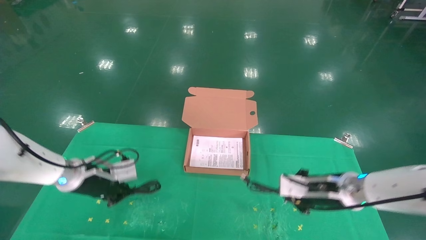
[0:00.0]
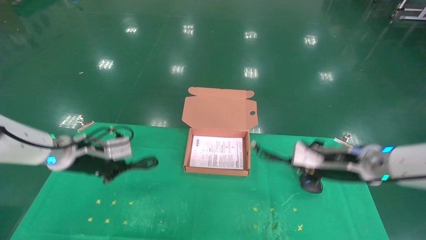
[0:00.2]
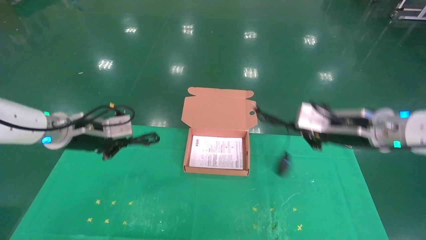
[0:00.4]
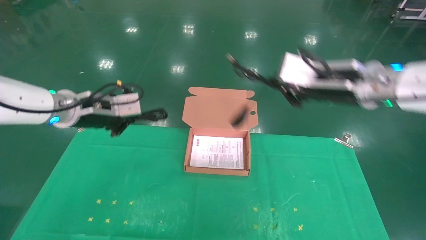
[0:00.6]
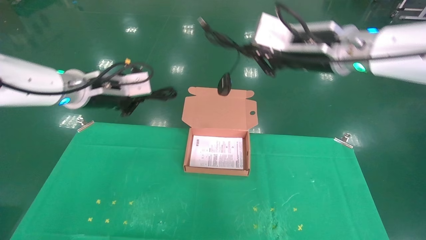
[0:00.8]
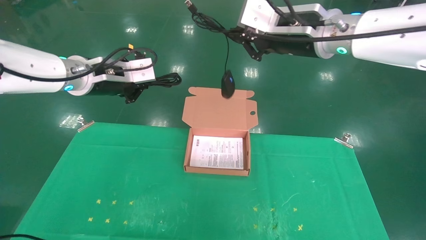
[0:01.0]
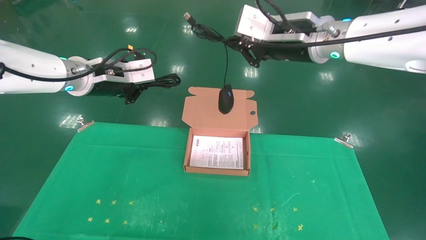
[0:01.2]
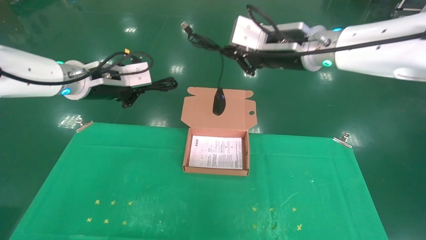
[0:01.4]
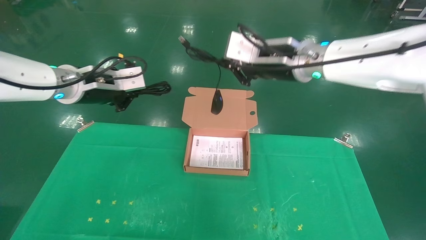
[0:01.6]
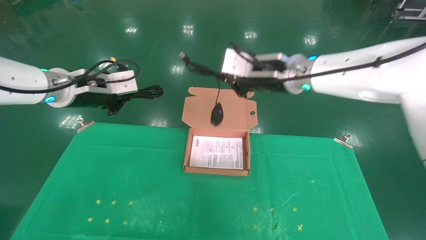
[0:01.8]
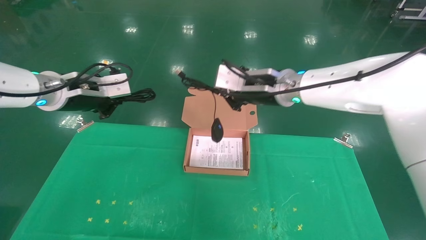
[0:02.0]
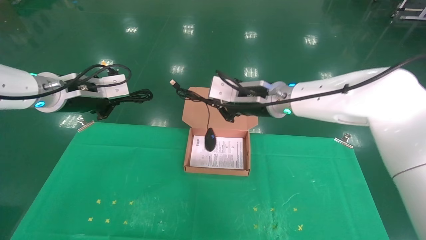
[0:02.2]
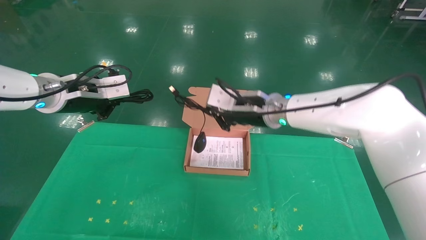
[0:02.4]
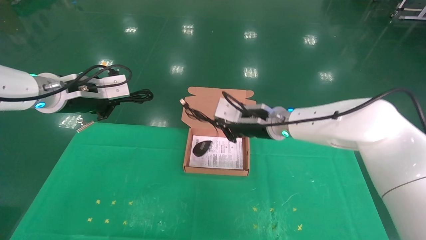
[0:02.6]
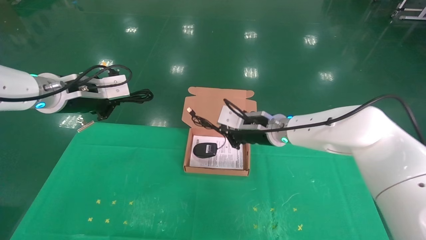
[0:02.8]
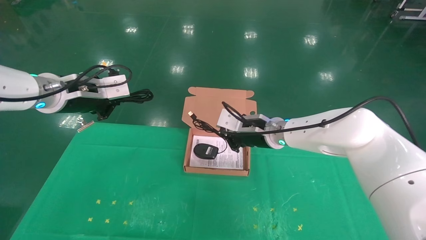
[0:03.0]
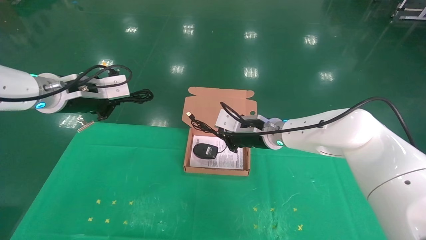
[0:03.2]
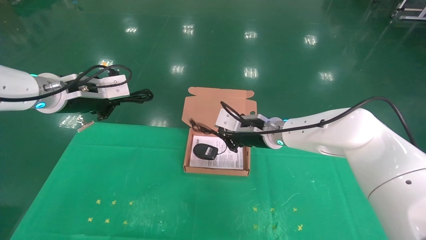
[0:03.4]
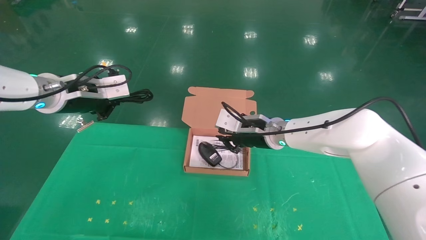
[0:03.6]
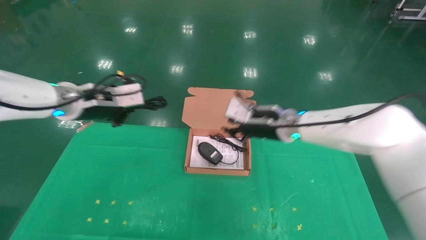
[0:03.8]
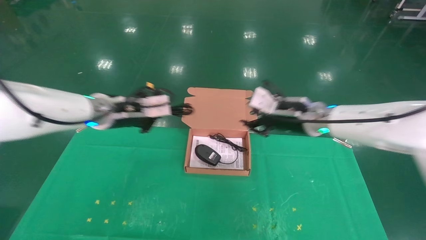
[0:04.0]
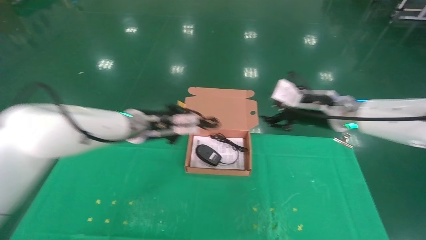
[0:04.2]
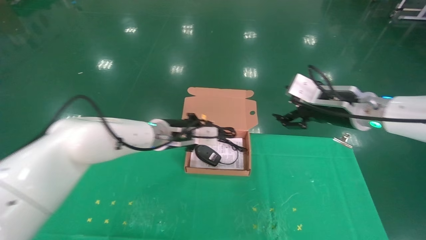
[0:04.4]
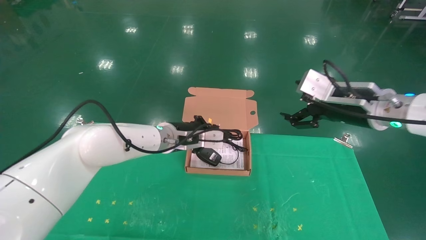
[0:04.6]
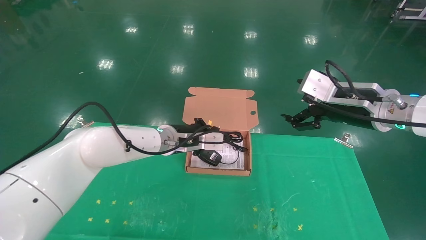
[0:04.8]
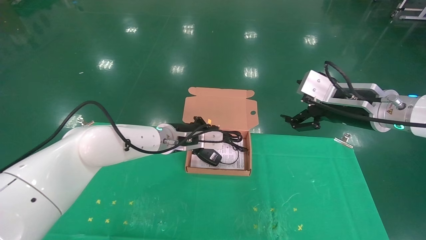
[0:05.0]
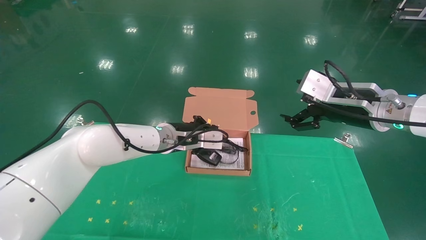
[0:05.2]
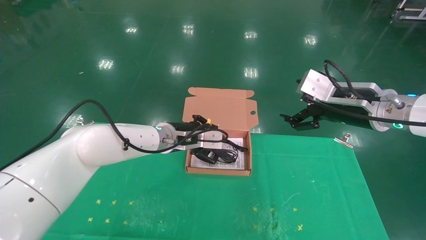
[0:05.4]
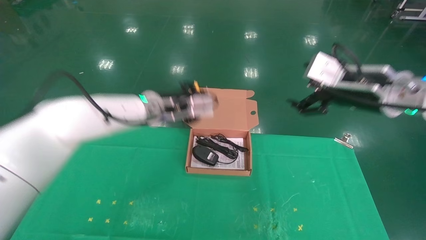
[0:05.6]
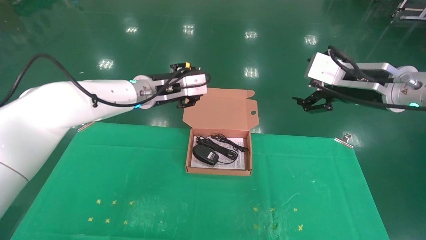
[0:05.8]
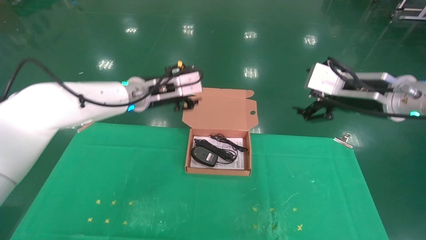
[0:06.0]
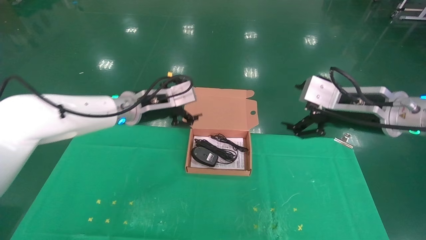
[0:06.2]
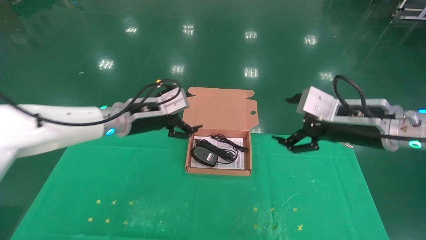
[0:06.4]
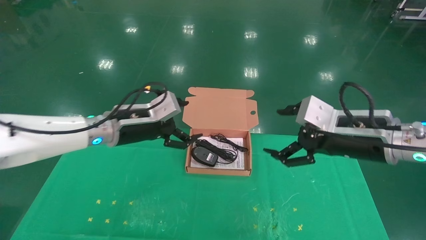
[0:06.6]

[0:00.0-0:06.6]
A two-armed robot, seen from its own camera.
Task of the whole recording: grasp data cable left put into box grasp mouse right put into box.
Step, 0:00.6 to 0:05.6: Place the mouse and power cord into the box.
0:00.0 to 0:01.6: The left gripper moves upward, some 20 cm, while the right gripper moves upward and to the left, roughly 25 cm.
0:01.6 to 0:03.2: The right gripper moves downward and forward, roughly 15 cm.
0:03.2 to 0:05.0: The right gripper moves to the right, backward and upward, about 20 cm, and opens. The left gripper is displaced to the right, downward and forward by approximately 25 cm.
0:05.0 to 0:06.6: The left gripper moves to the left, backward and upward, about 10 cm, and opens its fingers. The right gripper shifts by approximately 5 cm.

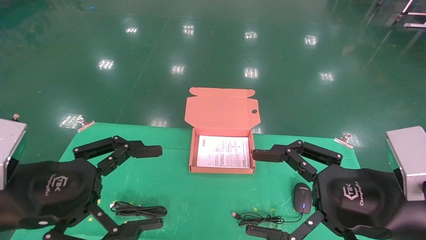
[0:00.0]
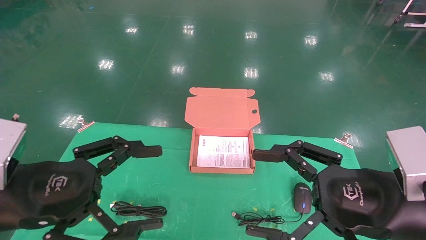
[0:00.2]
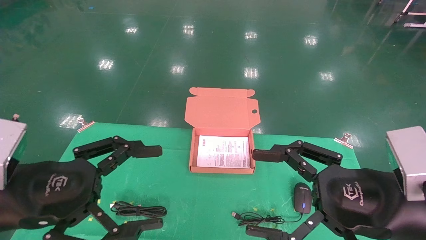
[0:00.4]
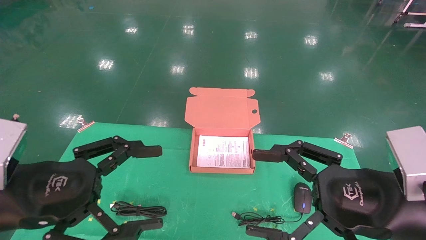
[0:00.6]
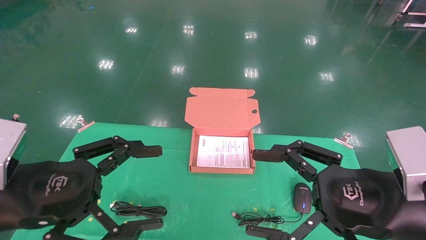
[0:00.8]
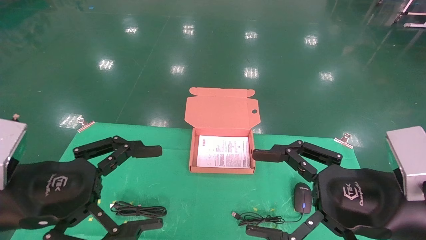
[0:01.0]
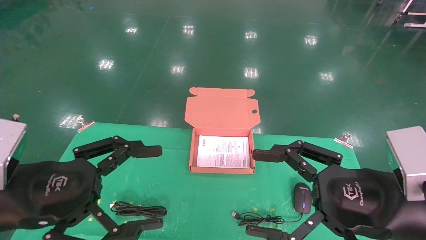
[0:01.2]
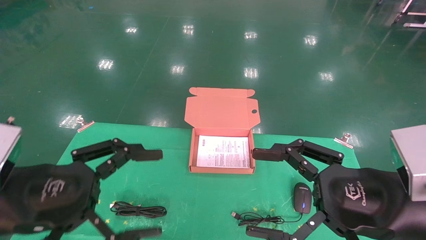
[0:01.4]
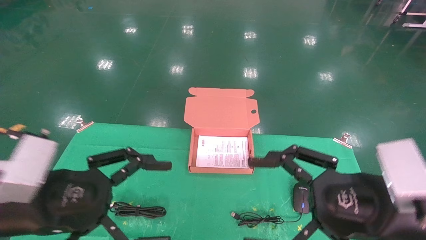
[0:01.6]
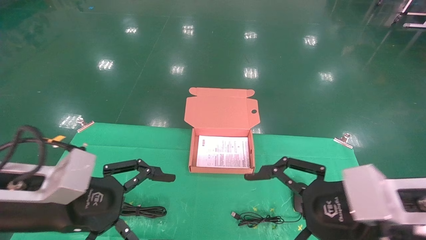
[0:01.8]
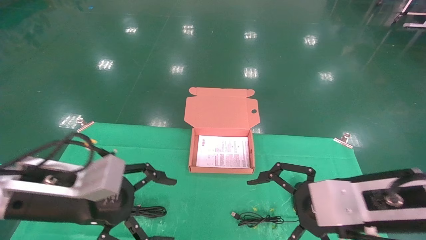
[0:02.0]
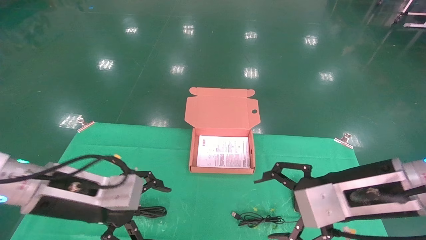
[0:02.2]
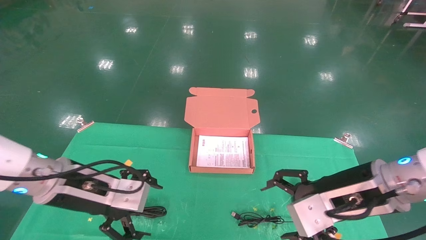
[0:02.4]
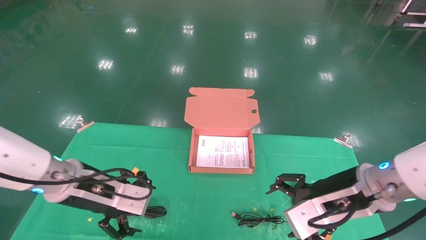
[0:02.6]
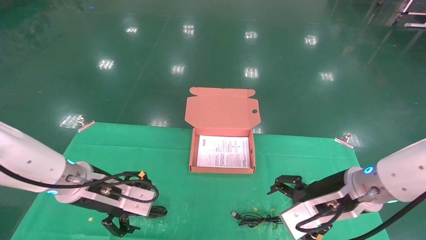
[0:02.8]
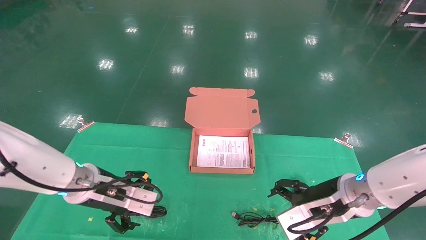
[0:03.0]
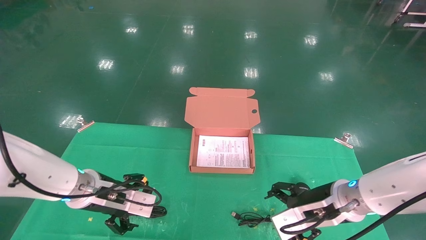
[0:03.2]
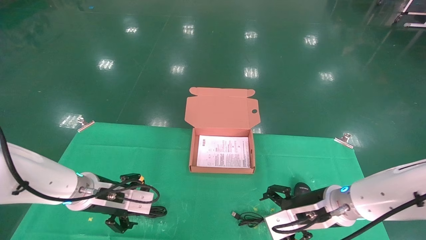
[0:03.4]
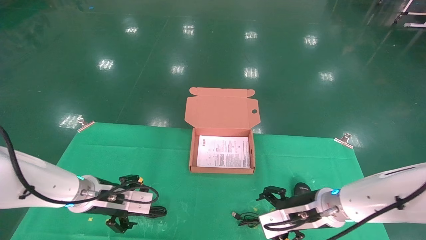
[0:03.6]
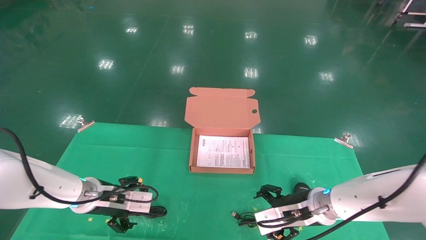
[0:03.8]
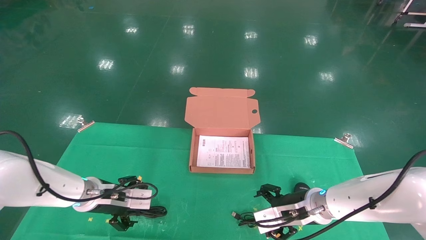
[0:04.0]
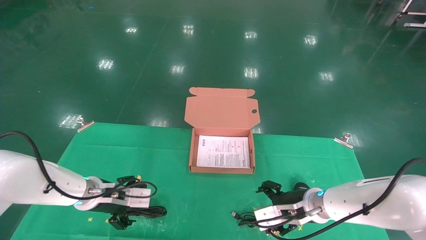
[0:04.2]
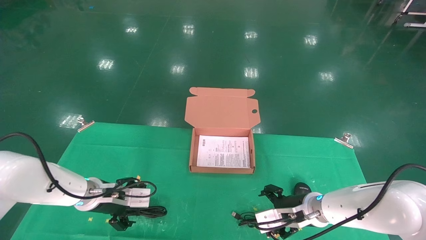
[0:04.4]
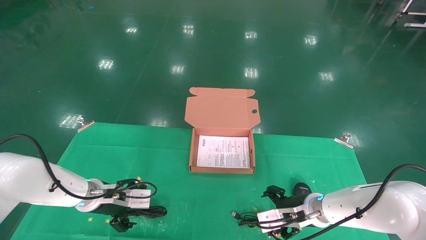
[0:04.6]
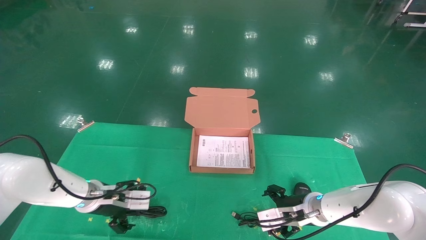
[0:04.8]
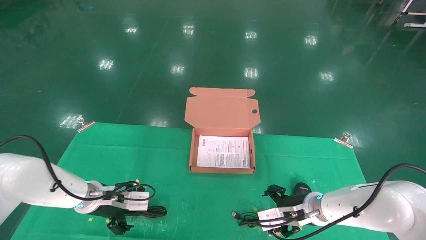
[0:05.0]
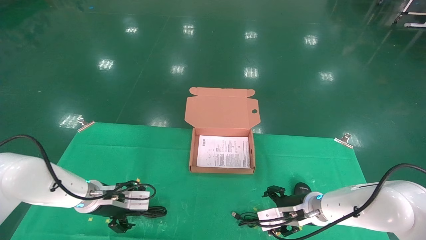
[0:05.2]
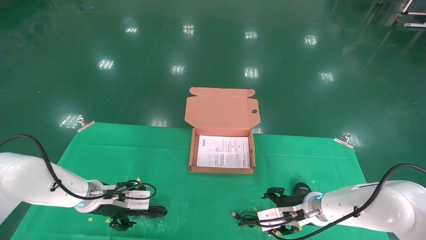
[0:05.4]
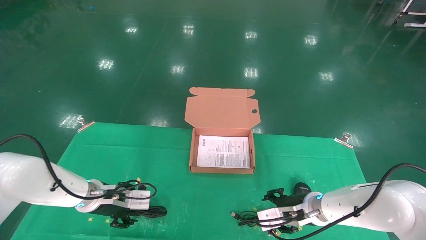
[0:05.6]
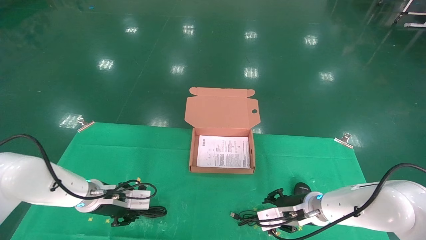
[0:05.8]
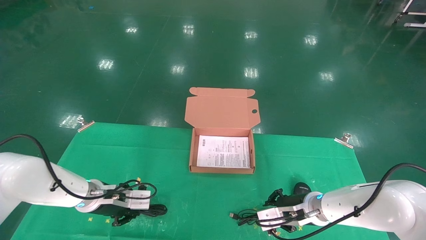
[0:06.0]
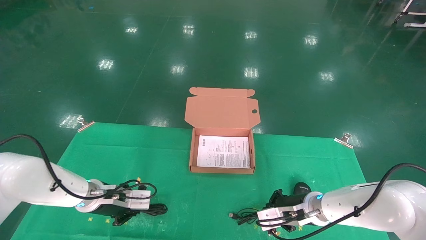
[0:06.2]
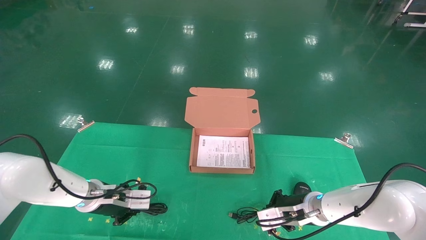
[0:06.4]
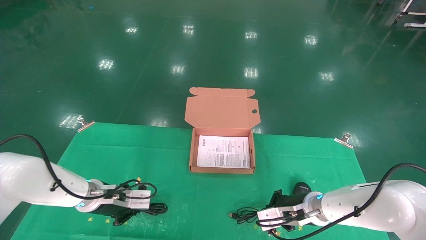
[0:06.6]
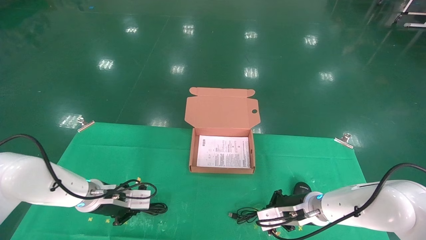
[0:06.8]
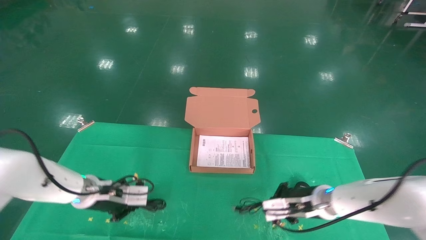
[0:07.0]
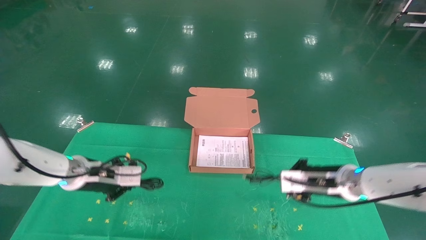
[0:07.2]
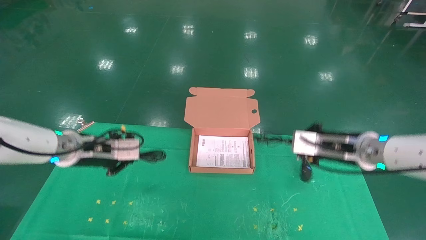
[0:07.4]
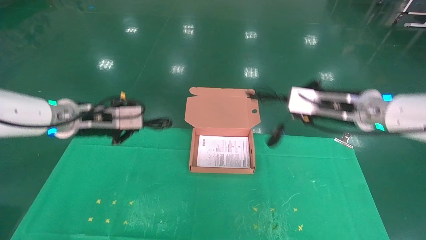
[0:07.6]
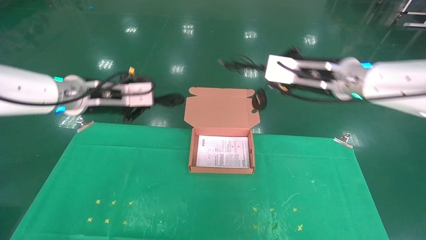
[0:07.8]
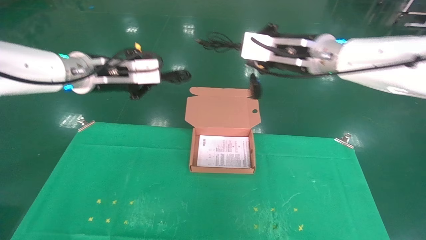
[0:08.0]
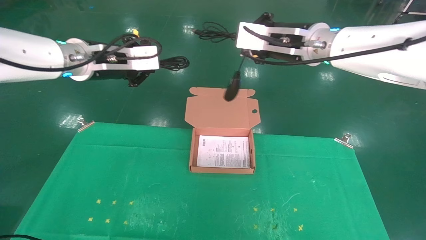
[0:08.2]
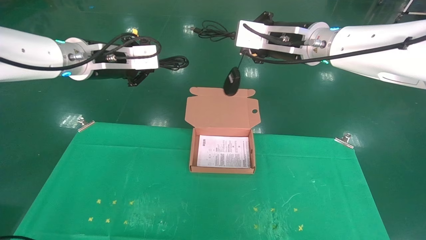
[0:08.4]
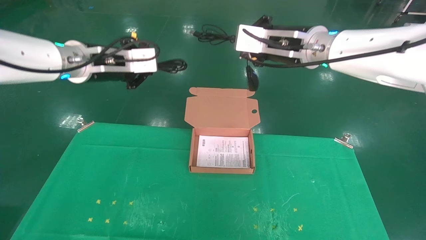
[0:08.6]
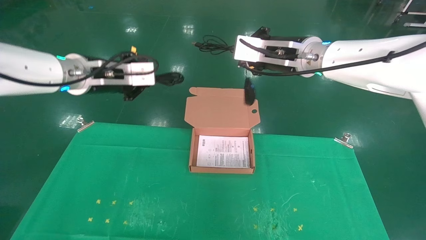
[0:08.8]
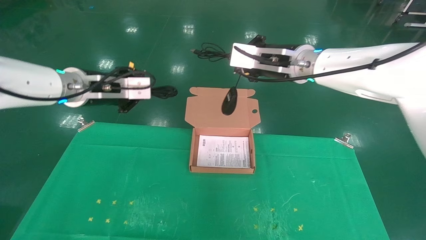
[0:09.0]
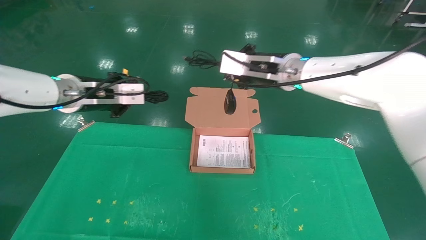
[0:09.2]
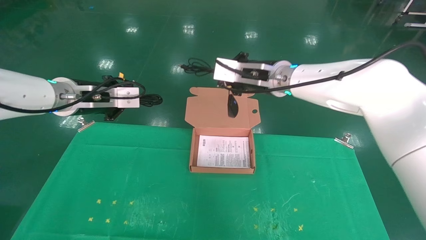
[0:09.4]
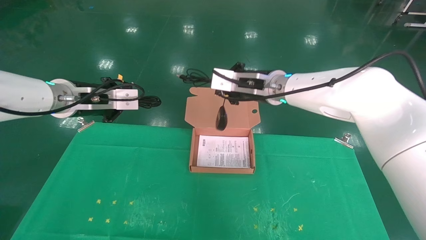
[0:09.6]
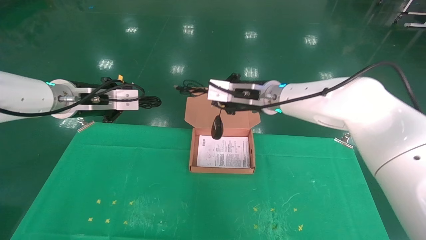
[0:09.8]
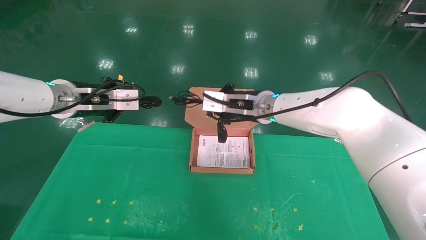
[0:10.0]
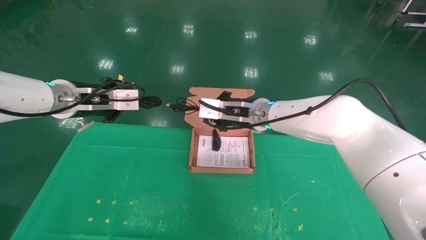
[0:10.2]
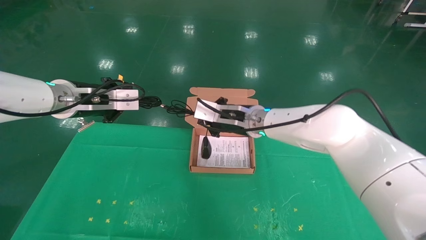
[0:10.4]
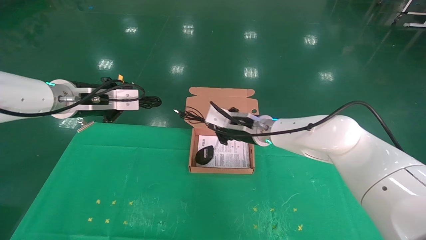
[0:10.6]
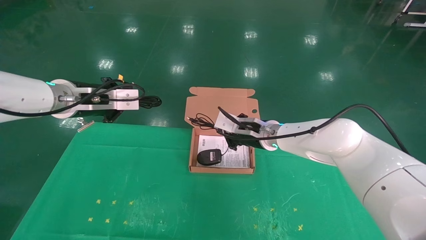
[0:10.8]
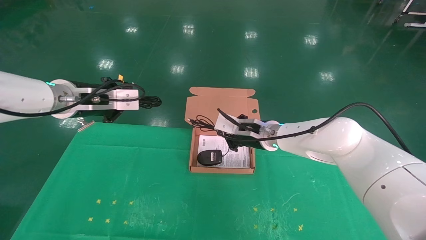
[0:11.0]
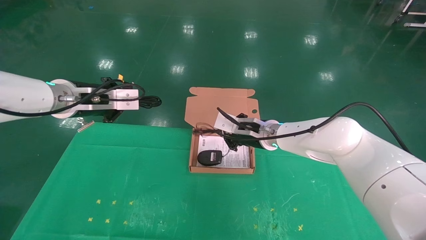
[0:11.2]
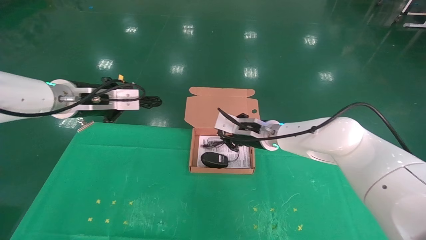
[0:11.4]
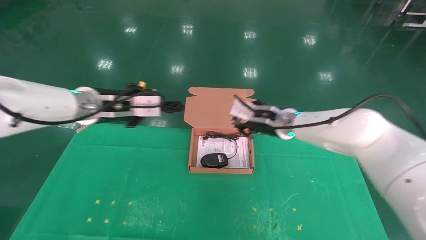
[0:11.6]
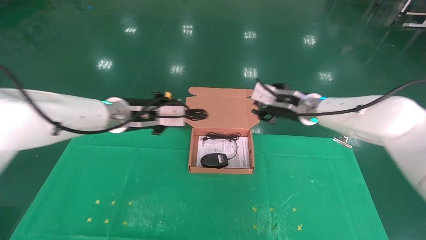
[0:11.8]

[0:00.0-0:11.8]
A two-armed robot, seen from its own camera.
Task of the whole recording: grasp data cable left put into box grasp mouse right put into box.
Step, 0:01.0 to 0:06.6: Grab and pick up both the mouse and power cord from the accessory packaging area at the same time.
0:00.0 to 0:01.4: Both grippers stay about where they are.
0:01.4 to 0:03.0: Both grippers move forward and downward, approximately 15 cm.
0:03.0 to 0:04.4: Both grippers move downward and forward, some 10 cm.
0:04.4 to 0:06.0: The left gripper closes its fingers; the right gripper closes its fingers.
0:06.0 to 0:07.4: The left gripper moves upward, about 10 cm, and closes. The right gripper travels upward and to the right by roughly 15 cm, and closes its fingers.
0:07.4 to 0:08.8: The left gripper heads upward, covering approximately 15 cm, while the right gripper travels upward and to the left by about 25 cm.
0:08.8 to 0:10.4: The right gripper goes approximately 15 cm downward and to the left.
0:10.4 to 0:11.8: Both grippers travel together to the right, some 10 cm. The right gripper opens up.
